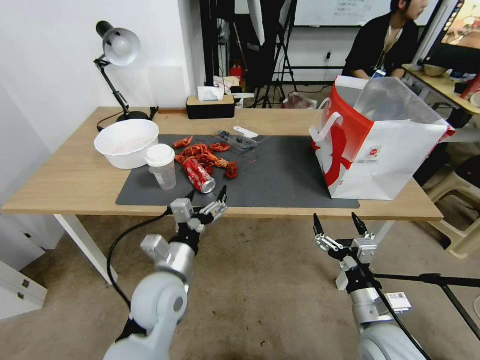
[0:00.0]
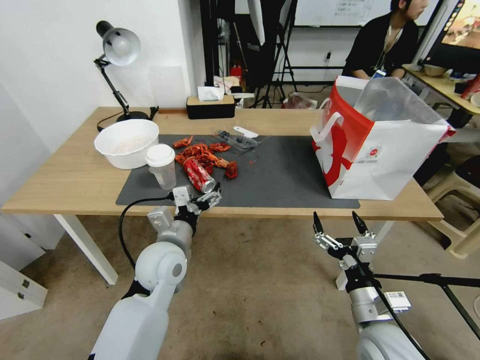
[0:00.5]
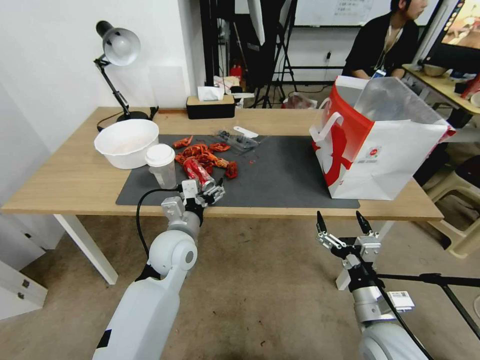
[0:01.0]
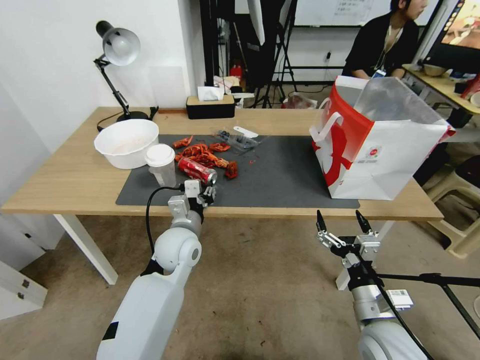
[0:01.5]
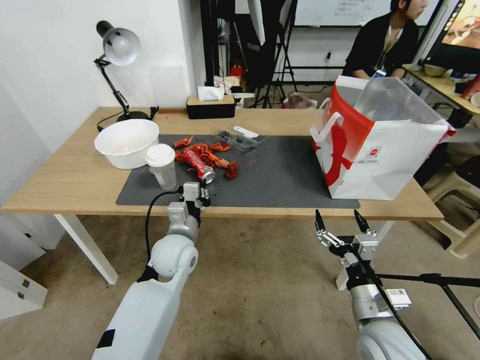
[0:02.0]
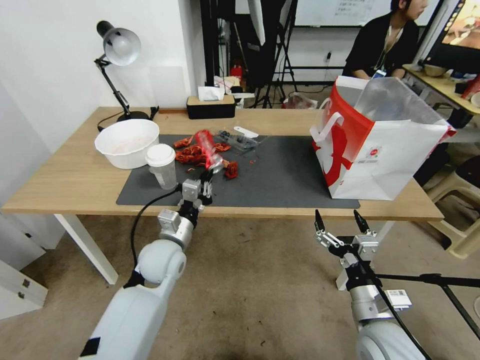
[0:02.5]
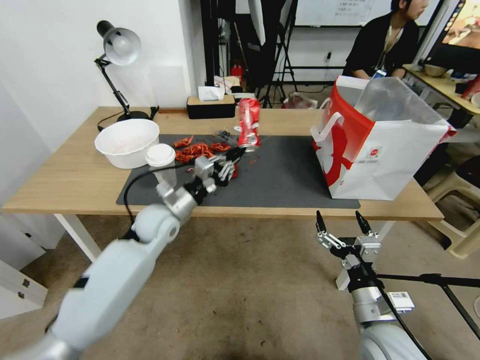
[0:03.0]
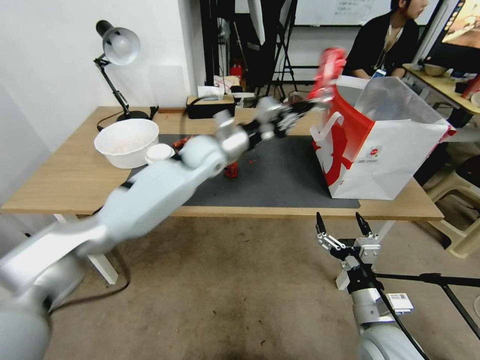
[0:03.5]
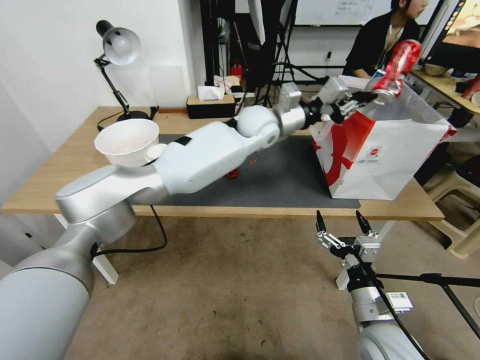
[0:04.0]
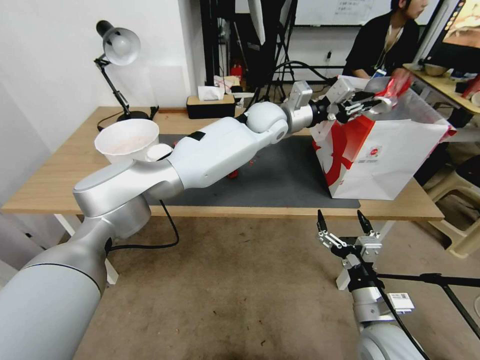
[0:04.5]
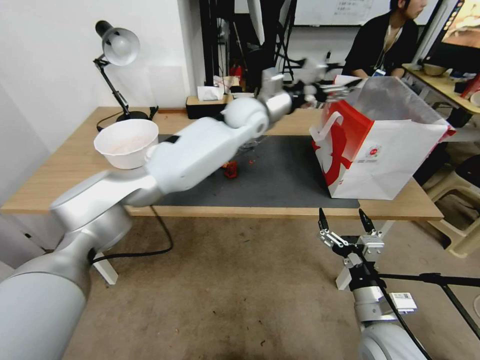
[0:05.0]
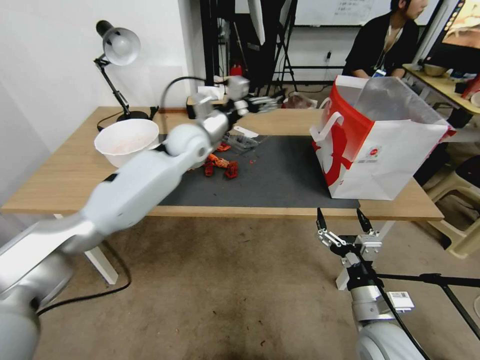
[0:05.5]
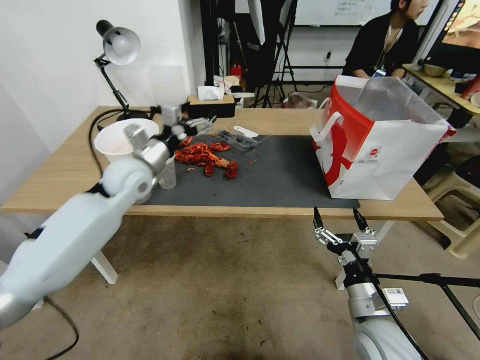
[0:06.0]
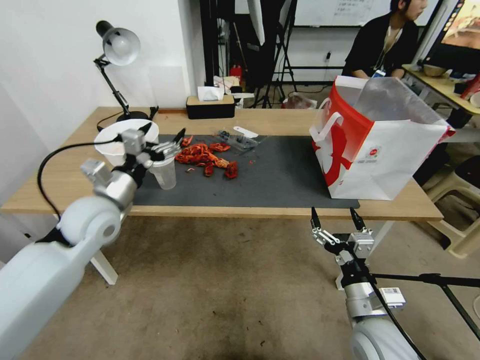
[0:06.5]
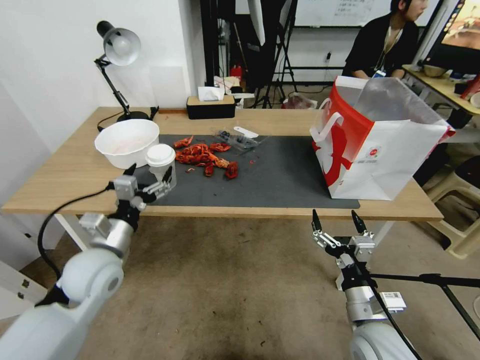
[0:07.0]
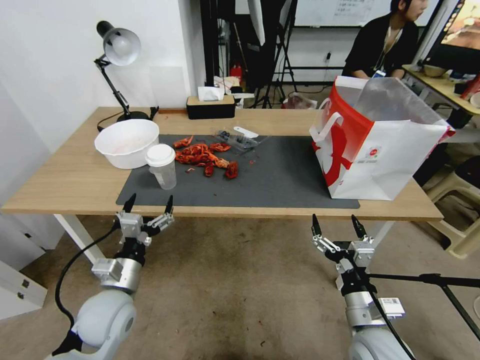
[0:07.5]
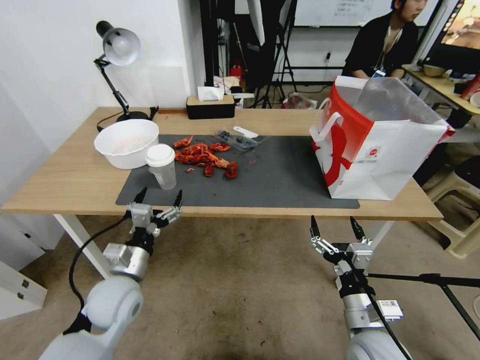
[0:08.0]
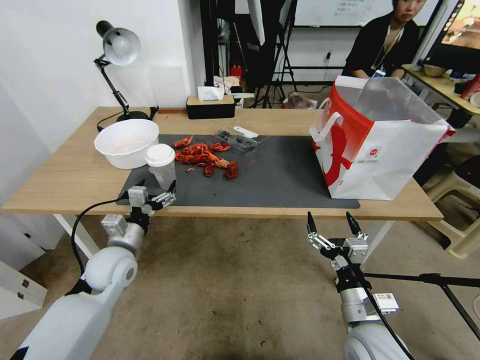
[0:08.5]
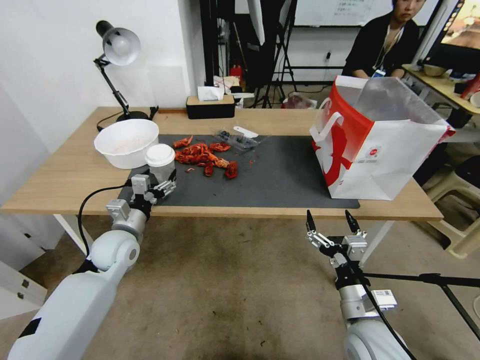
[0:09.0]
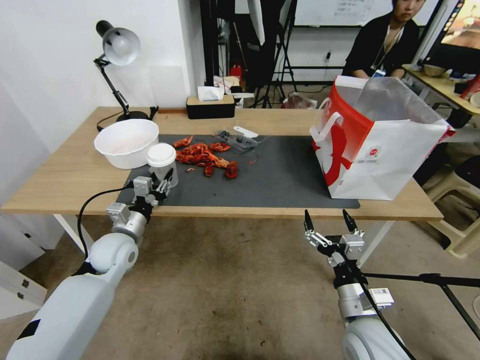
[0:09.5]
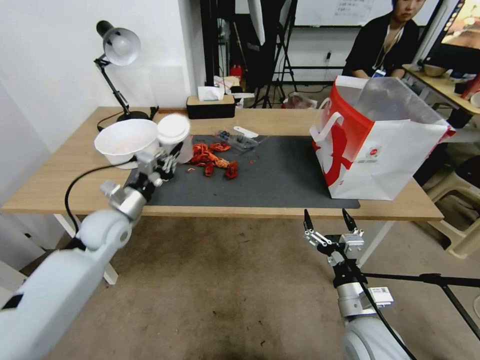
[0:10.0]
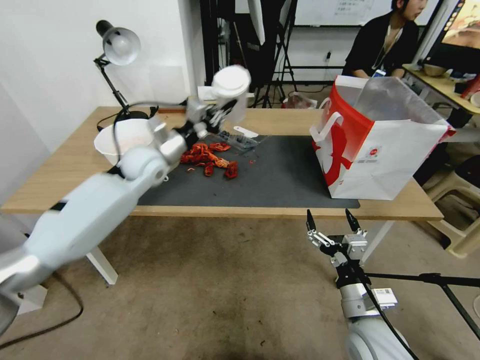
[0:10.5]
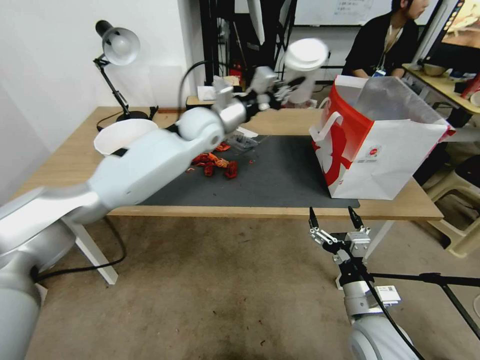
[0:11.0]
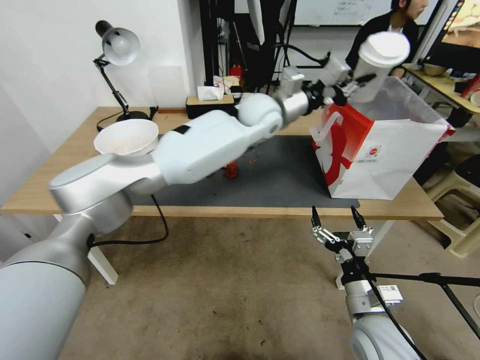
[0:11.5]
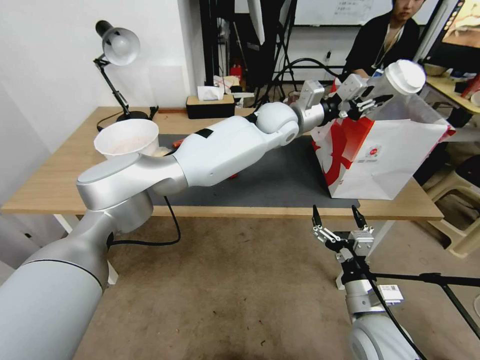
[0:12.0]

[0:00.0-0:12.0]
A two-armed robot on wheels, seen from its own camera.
0:00.0 to 0:02.0: The left gripper goes approximately 10 cm forward, and closes its fingers.
0:02.0 to 0:04.0: The left gripper heads forward, upward and to the right, covering about 35 cm.
0:04.0 to 0:06.0: The left gripper is displaced to the left and backward by about 30 cm, and opens up.
0:06.0 to 0:08.0: The left gripper shifts roughly 25 cm backward and downward.
0:08.0 to 0:10.0: The left gripper travels forward and upward by approximately 15 cm, and closes its fingers.
0:10.0 to 0:12.0: The left gripper travels to the right, forward and upward by some 40 cm.

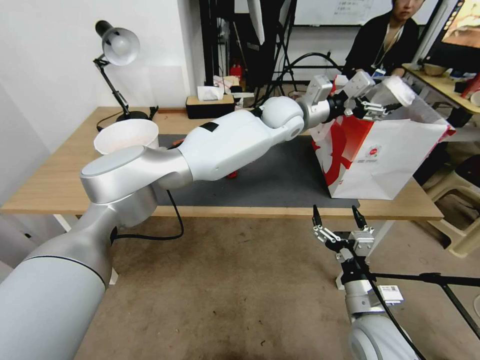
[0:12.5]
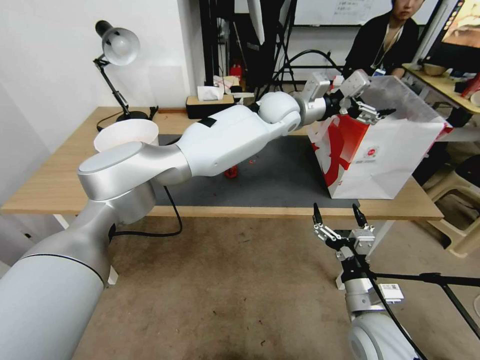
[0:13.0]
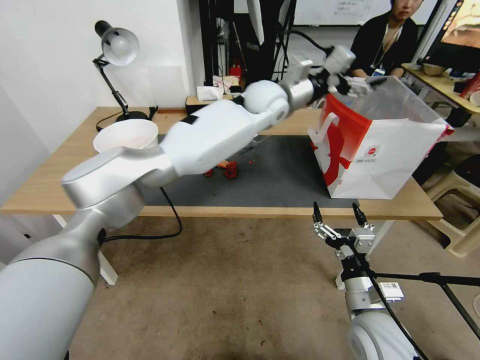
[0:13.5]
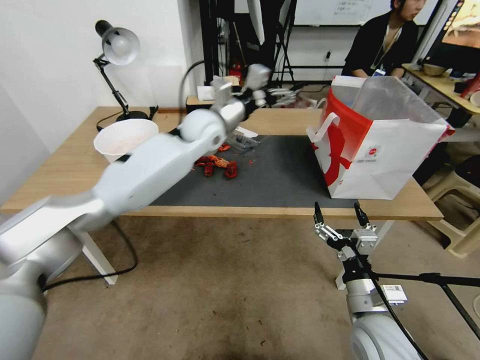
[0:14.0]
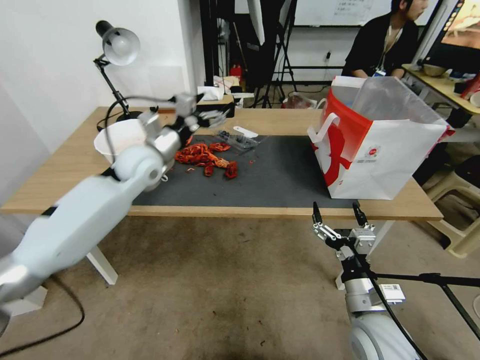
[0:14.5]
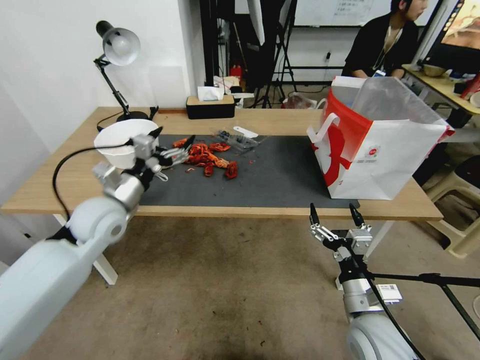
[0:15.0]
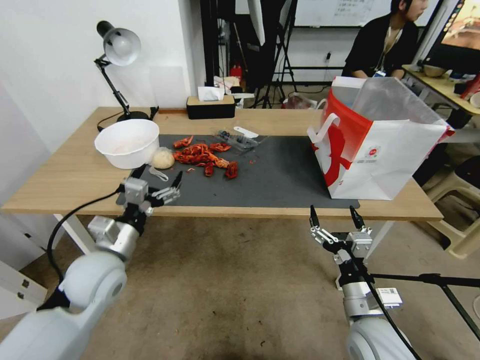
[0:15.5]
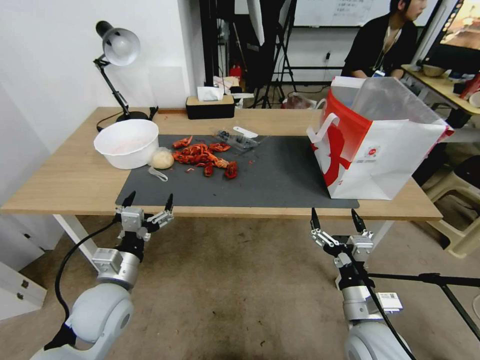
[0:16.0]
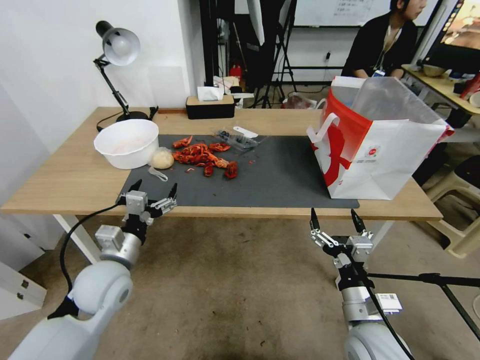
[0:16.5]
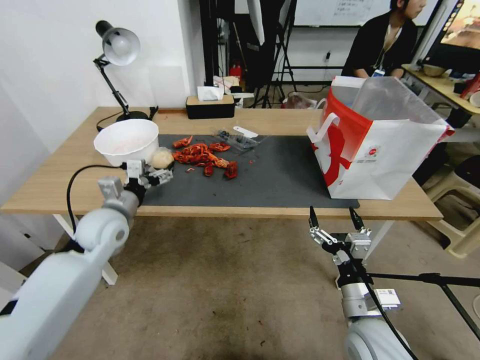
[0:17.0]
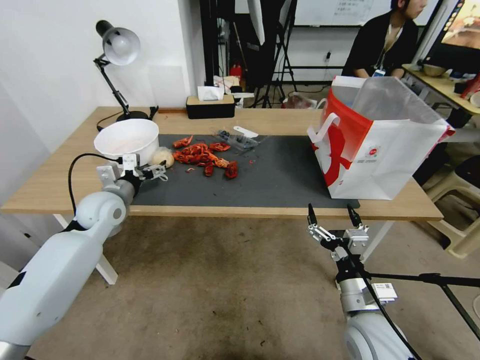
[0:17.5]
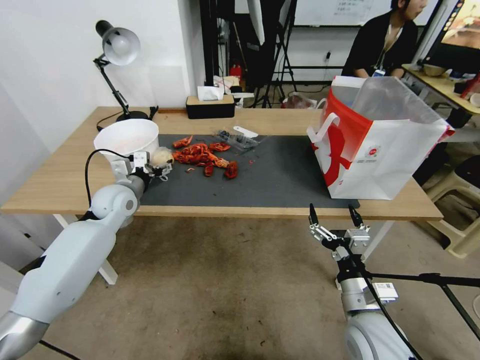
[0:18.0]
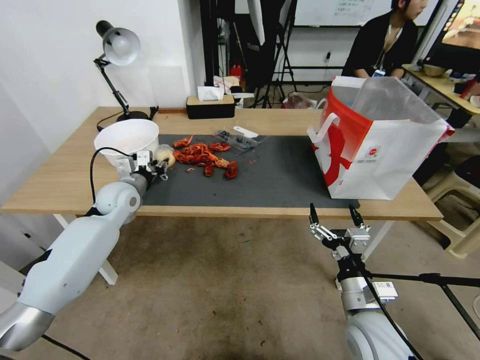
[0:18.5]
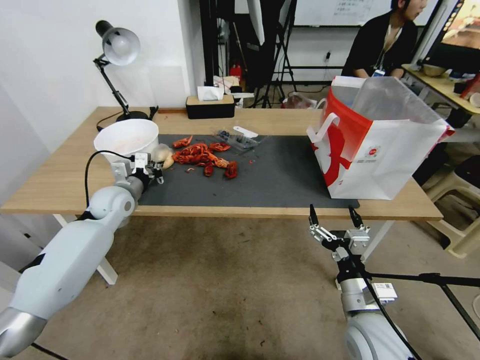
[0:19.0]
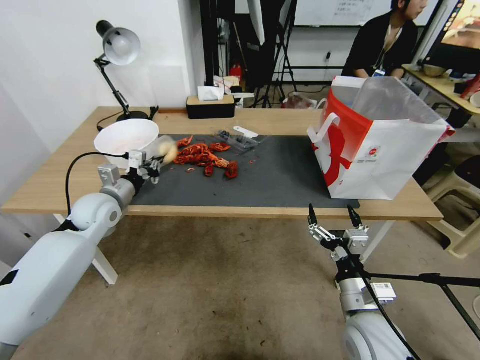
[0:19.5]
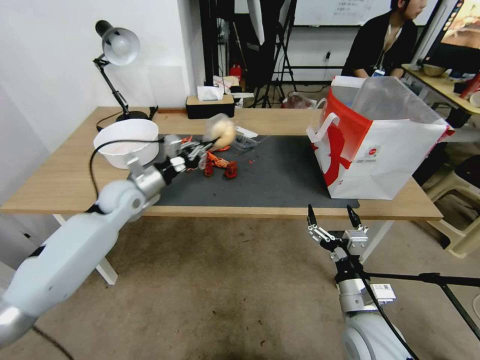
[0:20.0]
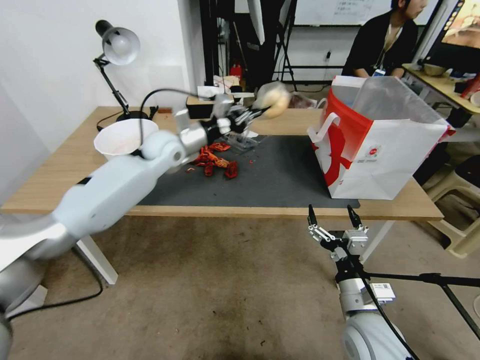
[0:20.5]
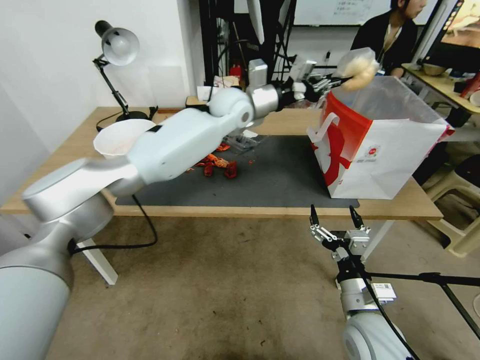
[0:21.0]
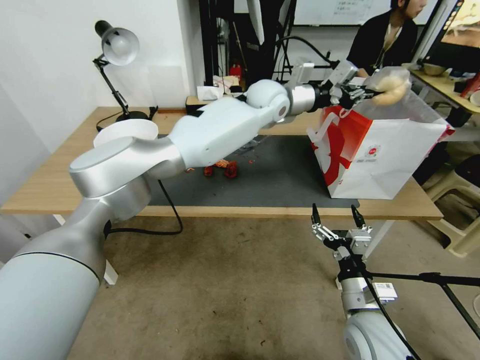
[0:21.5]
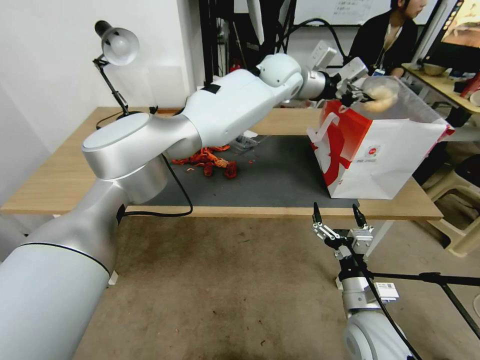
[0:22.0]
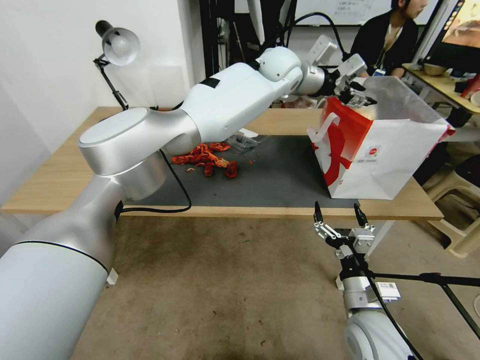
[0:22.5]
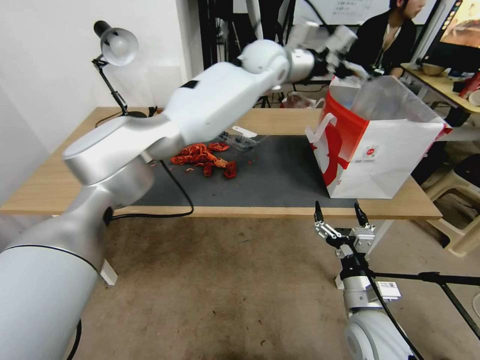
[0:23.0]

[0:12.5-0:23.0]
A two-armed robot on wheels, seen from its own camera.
0:12.5 to 0:14.5: The left gripper moves to the left, some 35 cm.
0:14.5 to 0:16.5: The left gripper travels backward and downward by approximately 25 cm.
0:16.5 to 0:19.0: The left gripper heads forward, covering about 20 cm, and closes up.
0:19.0 to 0:21.0: The left gripper shifts some 35 cm to the right and upward.
0:21.0 to 0:23.0: The left gripper moves upward and to the right, approximately 10 cm, and opens up.

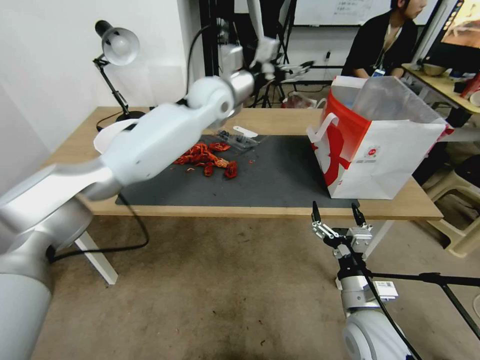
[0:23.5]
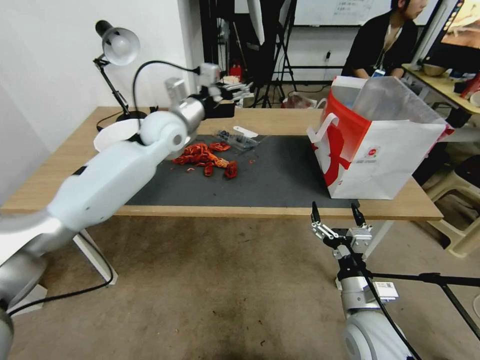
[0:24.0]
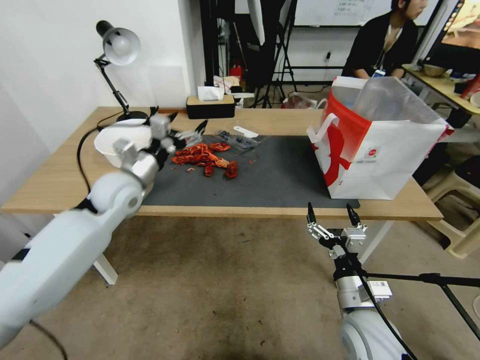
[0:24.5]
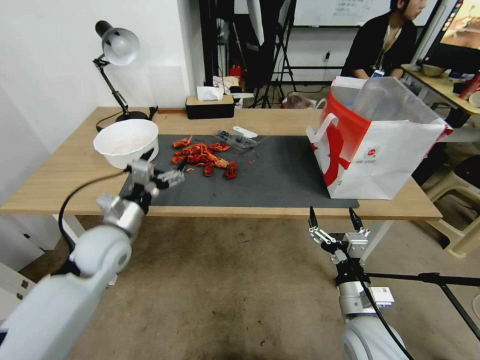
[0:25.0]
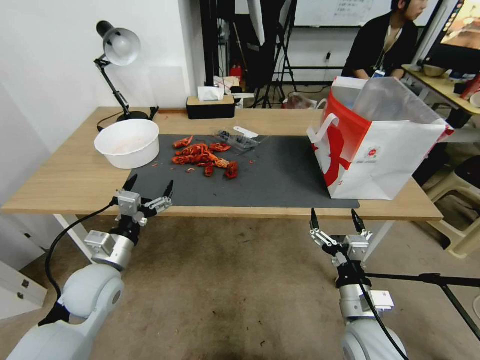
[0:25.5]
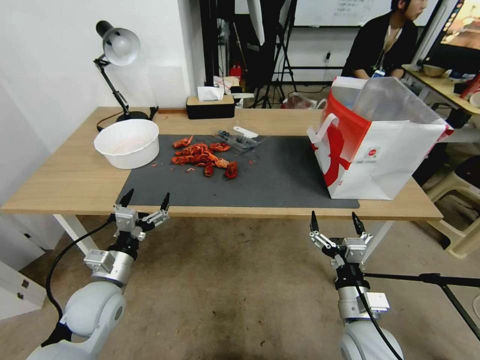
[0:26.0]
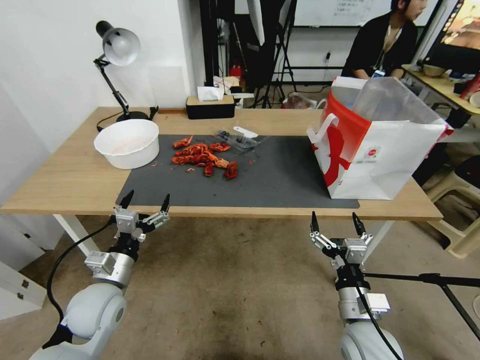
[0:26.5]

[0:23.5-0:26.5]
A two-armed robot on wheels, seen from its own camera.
0:23.5 to 0:25.0: The left gripper travels backward, to the left and downward by approximately 40 cm.
0:25.0 to 0:26.5: The left gripper goes about 10 cm backward and downward.
